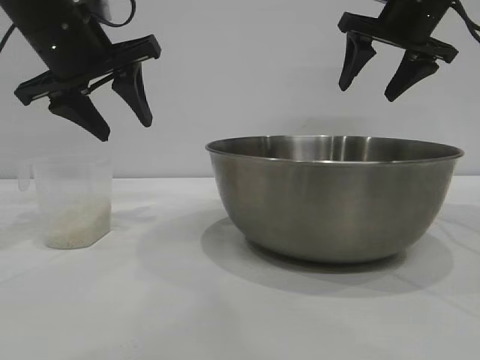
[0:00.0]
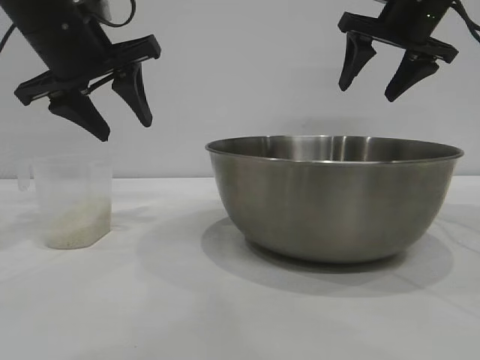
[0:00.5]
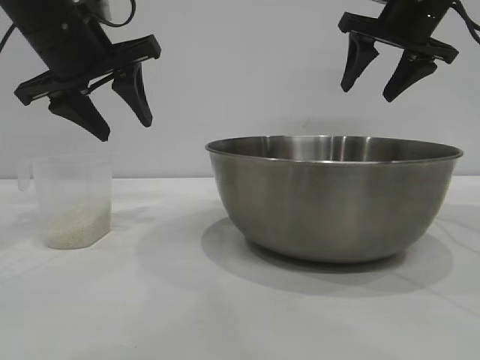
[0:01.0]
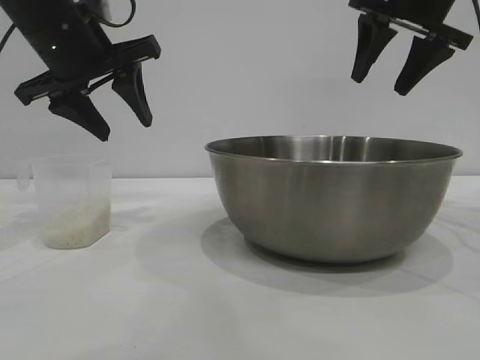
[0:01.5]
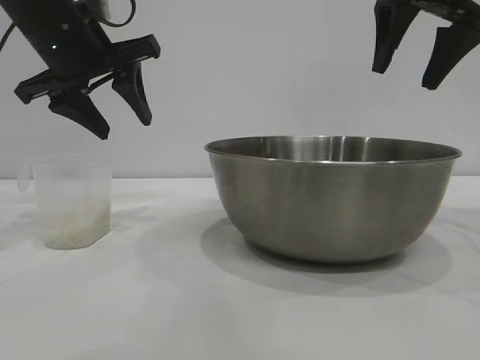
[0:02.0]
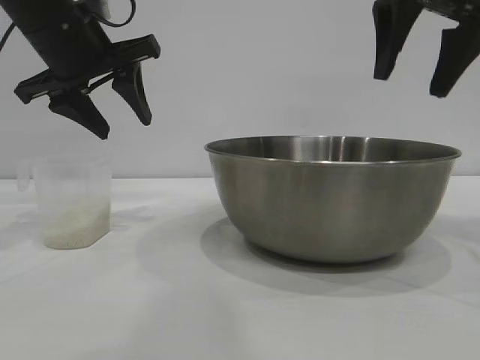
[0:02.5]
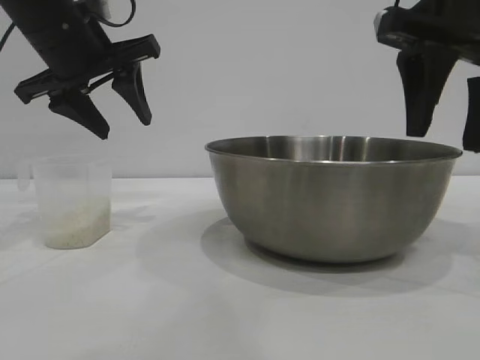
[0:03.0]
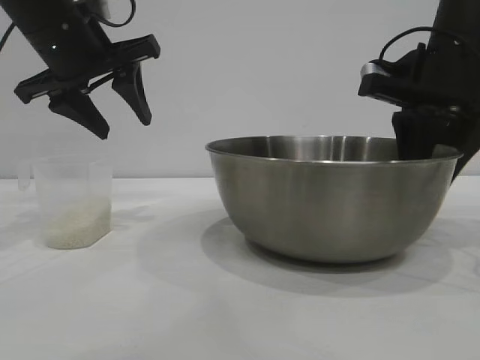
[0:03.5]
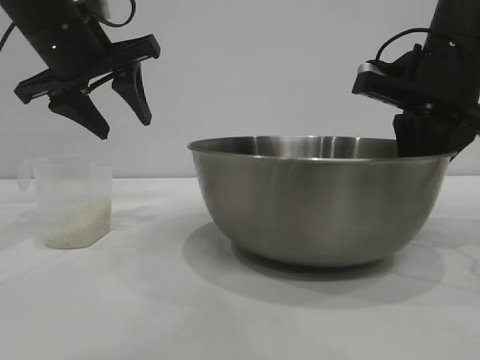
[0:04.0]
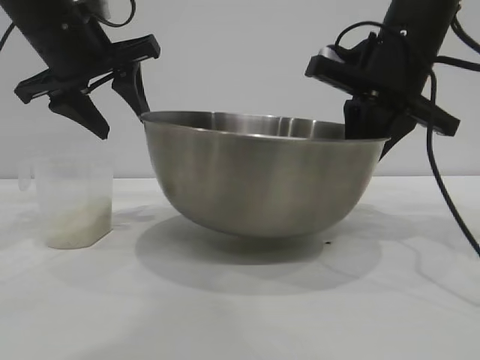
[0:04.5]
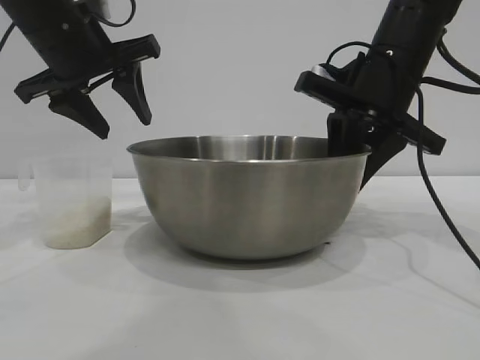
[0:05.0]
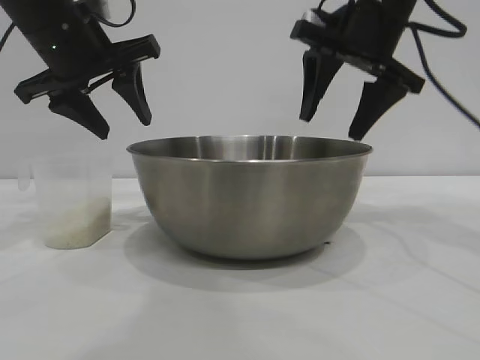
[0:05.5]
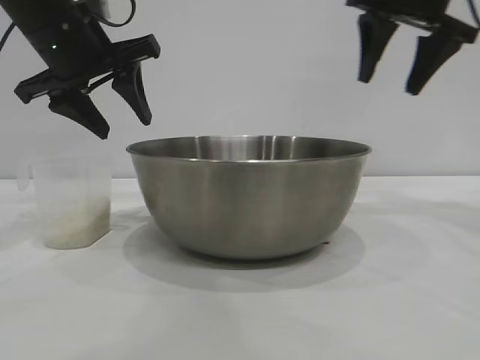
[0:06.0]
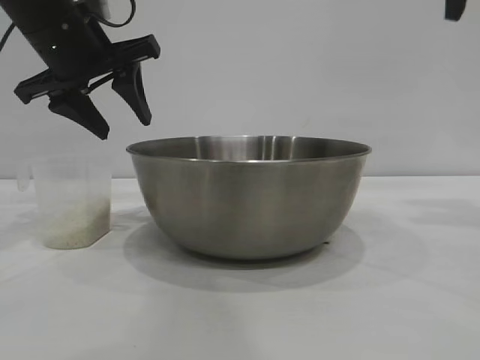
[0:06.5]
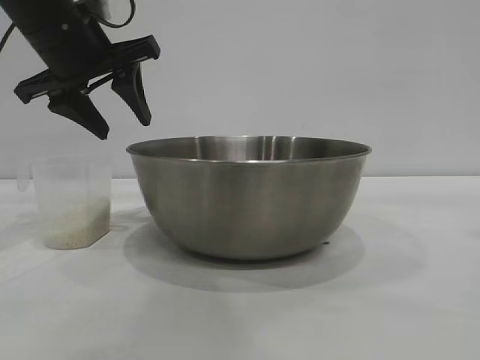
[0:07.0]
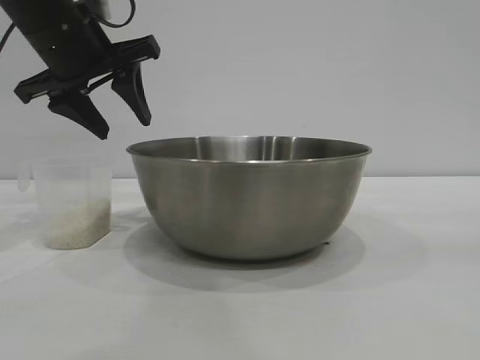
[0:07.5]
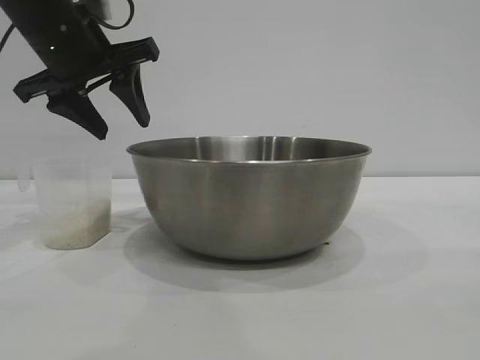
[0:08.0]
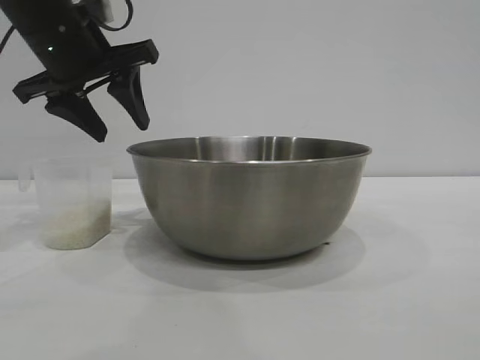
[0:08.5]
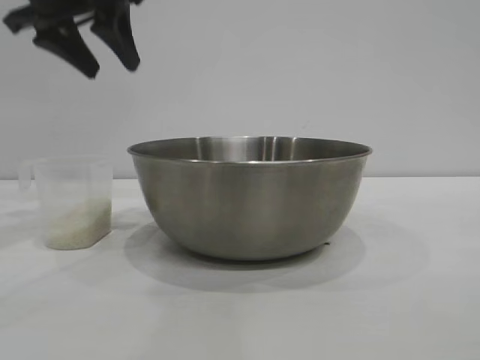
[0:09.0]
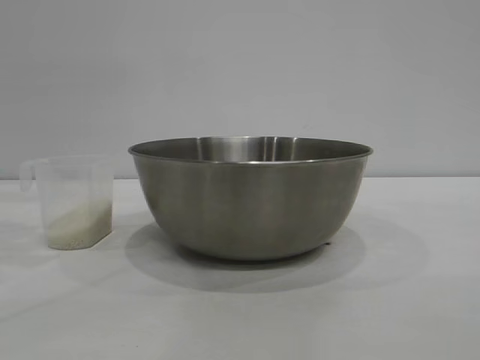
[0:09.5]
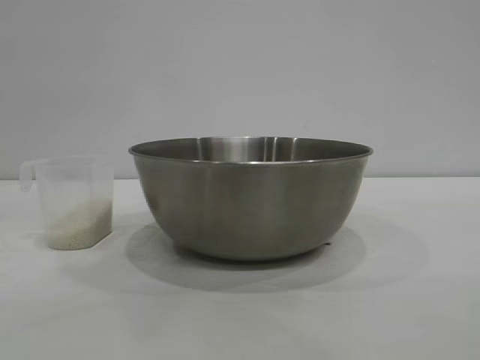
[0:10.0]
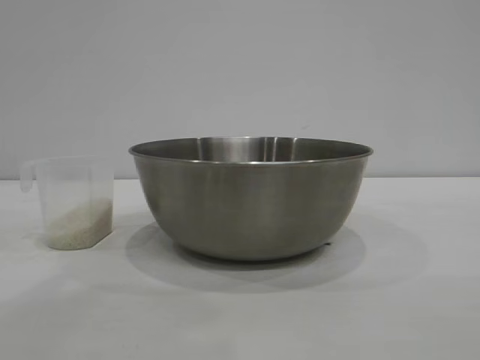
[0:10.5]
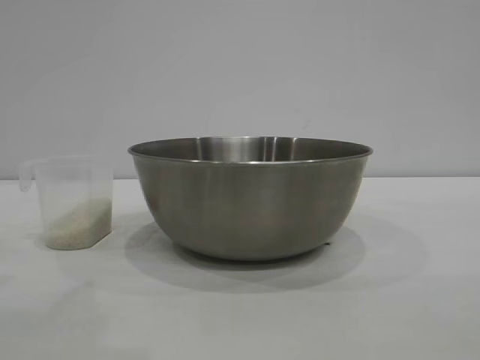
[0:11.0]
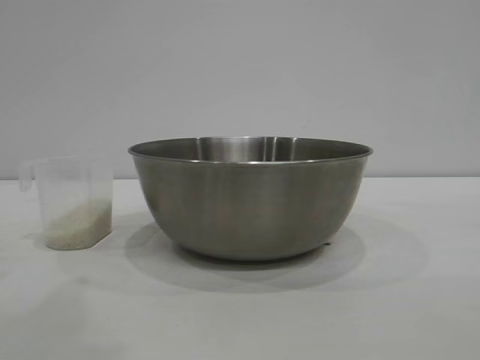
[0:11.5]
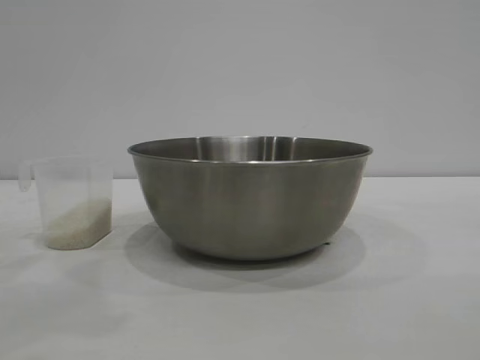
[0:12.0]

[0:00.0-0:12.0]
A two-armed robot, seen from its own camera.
Task of the whole recording: the right gripper grasp the rice container and place it in the center of the table, the left gripper grasp the rice scoop and pour the rice into the rice container.
Step, 0:00.0 to 0:04.0: Pick up the bowl with the right gripper.
Step, 0:04.5 to 0:05.0: Place the bowl in the center of view with the right gripper.

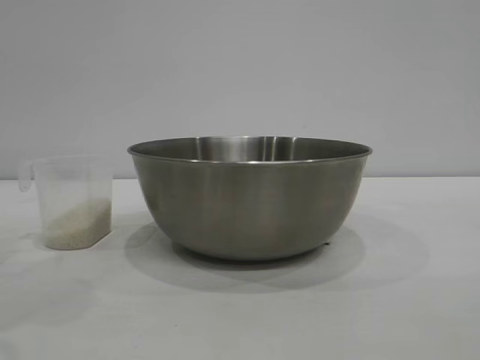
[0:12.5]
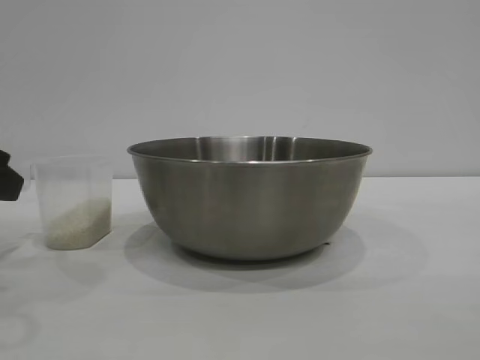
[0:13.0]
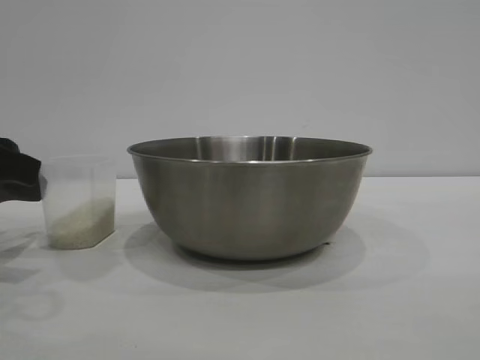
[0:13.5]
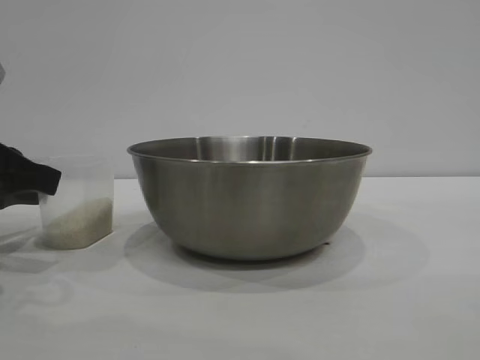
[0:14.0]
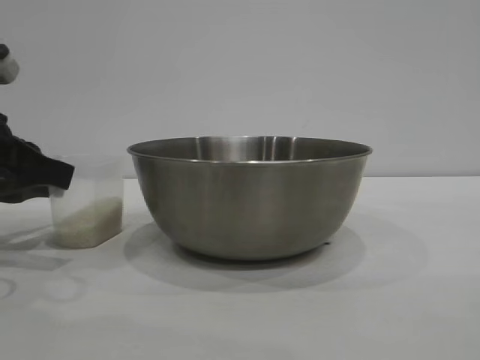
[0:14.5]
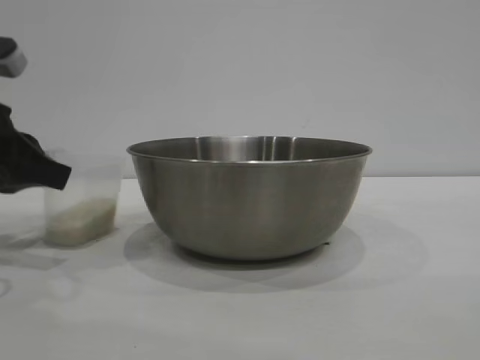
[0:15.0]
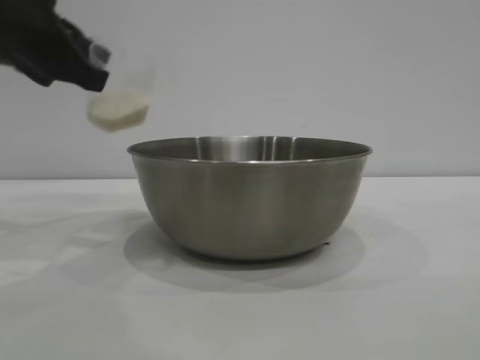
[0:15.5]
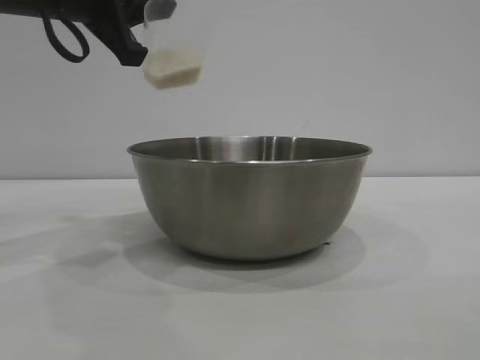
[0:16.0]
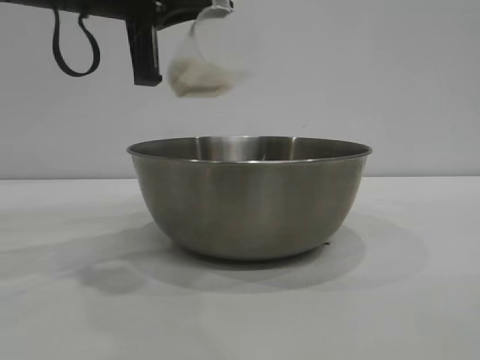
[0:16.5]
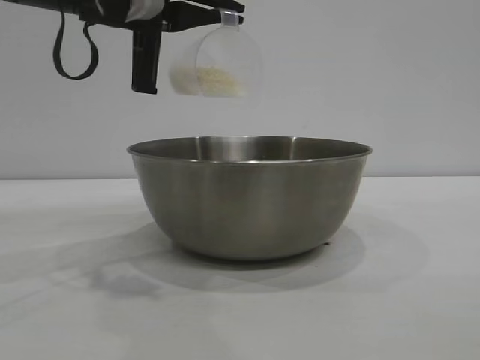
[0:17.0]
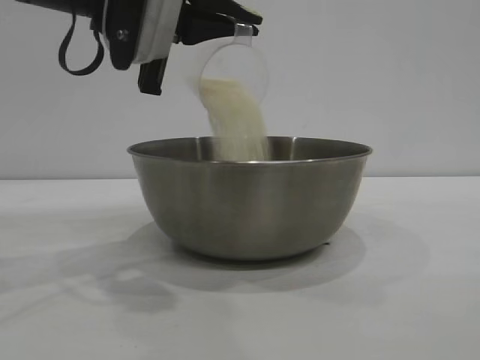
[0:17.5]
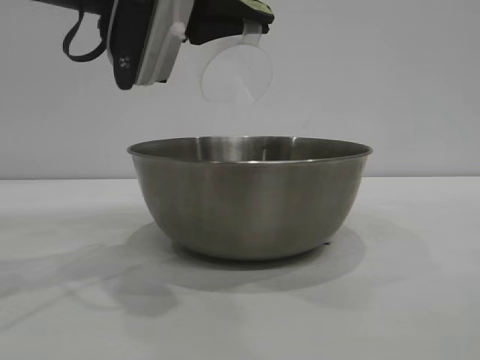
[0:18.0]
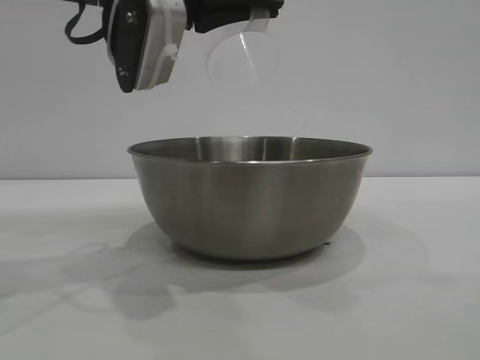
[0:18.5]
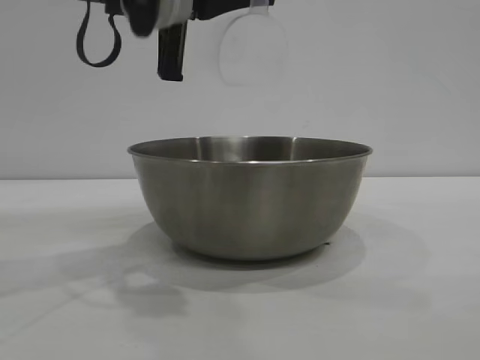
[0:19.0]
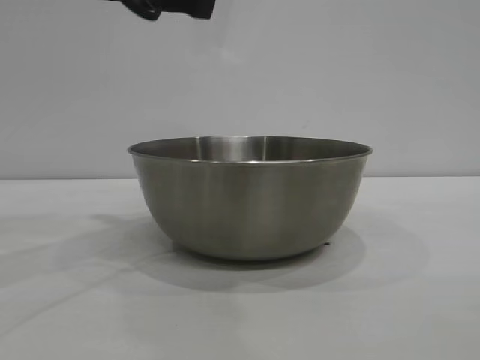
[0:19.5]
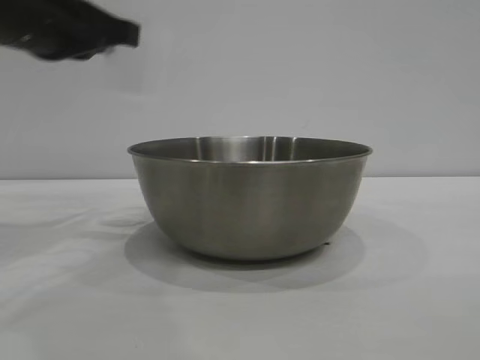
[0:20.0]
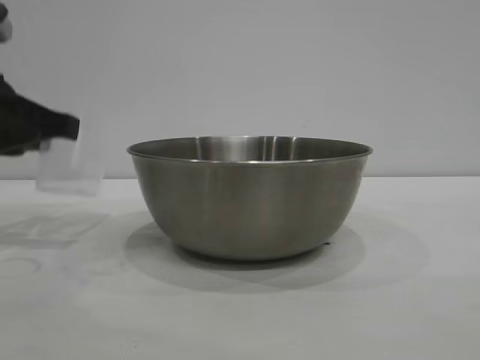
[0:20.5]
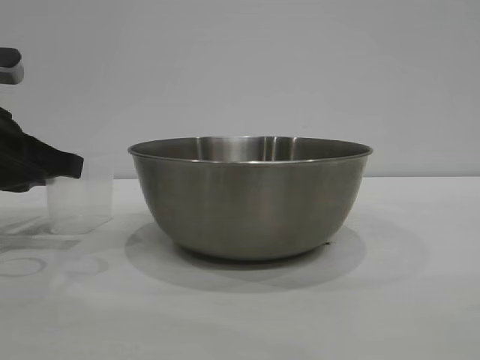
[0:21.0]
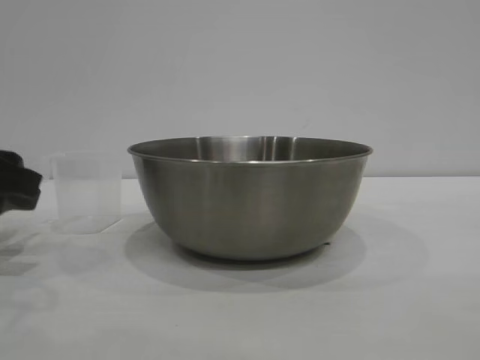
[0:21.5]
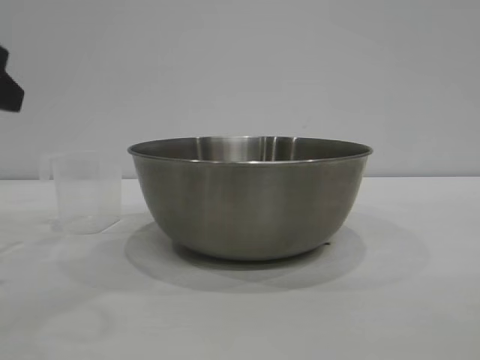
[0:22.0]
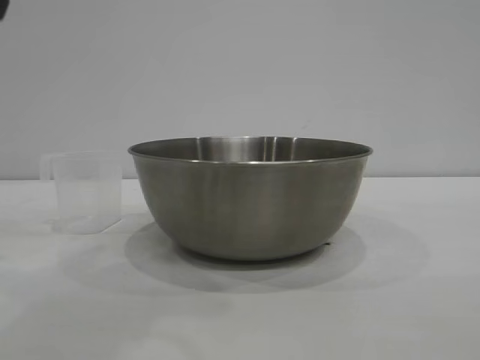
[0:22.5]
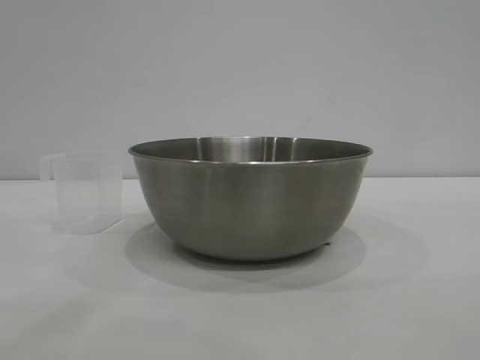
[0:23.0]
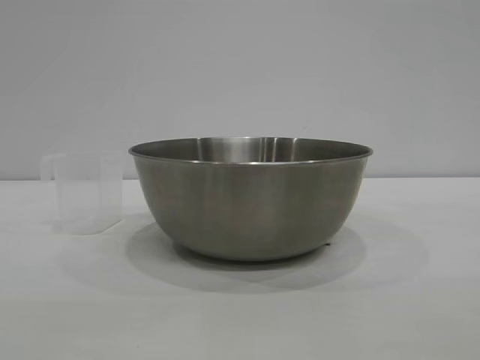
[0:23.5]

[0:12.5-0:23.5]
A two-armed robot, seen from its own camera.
Task of the whole recording: the right gripper grasp the rice container and place it in the center of the table, the left gripper grasp the rice scoop and pour the rice into the rice container.
Step, 0:12.5 to 0:15.0: Pick up the cup with rice in it with the left gripper.
Step, 0:15.5 to 0:19.0: Pour the rice from the cup into the bowl with the left gripper.
Step, 0:19.5 to 0:21.5: Place the cup on the table with the left gripper.
